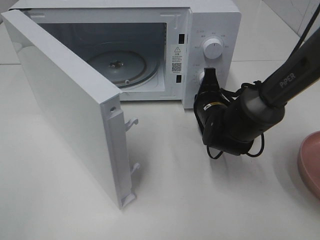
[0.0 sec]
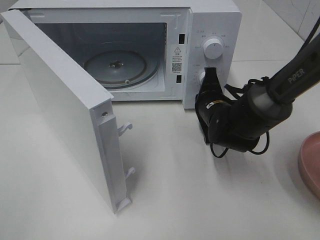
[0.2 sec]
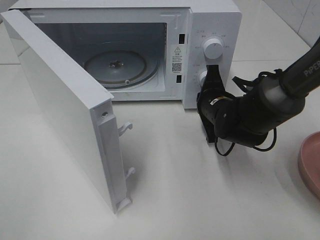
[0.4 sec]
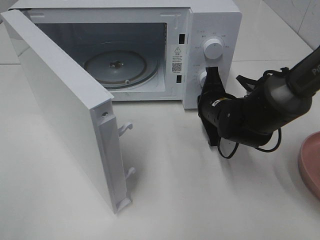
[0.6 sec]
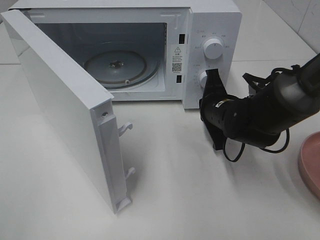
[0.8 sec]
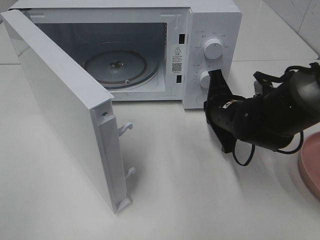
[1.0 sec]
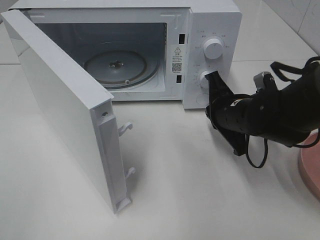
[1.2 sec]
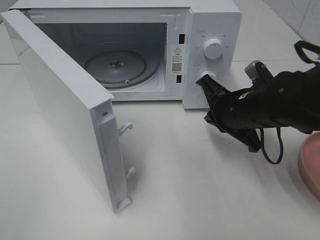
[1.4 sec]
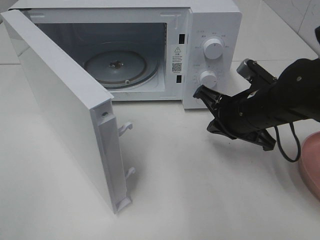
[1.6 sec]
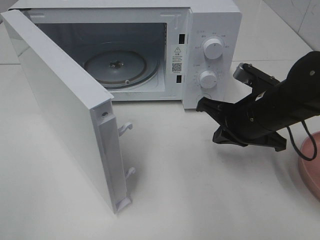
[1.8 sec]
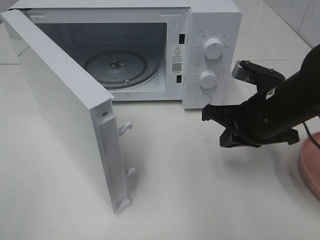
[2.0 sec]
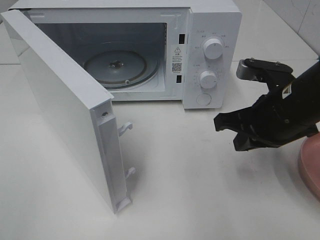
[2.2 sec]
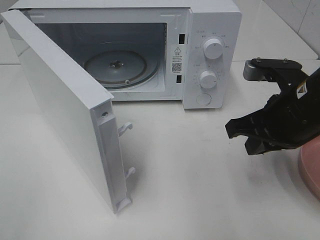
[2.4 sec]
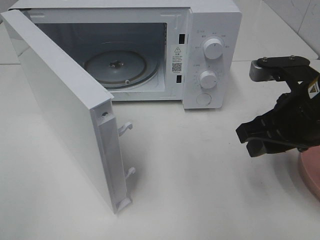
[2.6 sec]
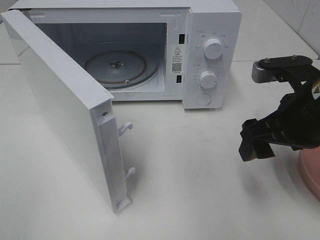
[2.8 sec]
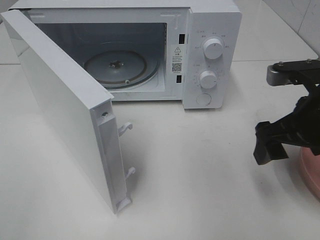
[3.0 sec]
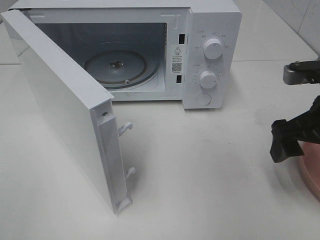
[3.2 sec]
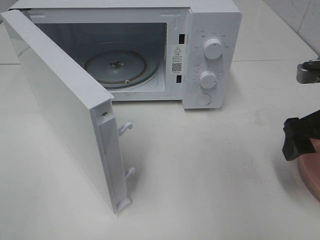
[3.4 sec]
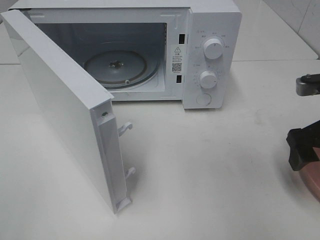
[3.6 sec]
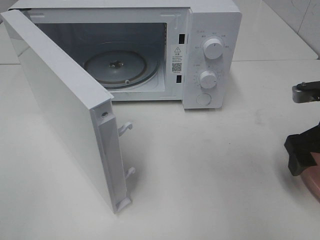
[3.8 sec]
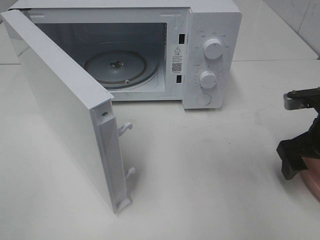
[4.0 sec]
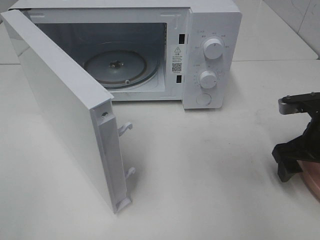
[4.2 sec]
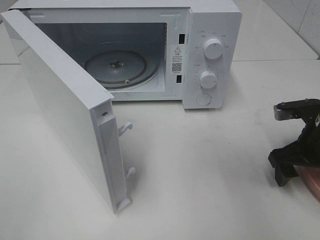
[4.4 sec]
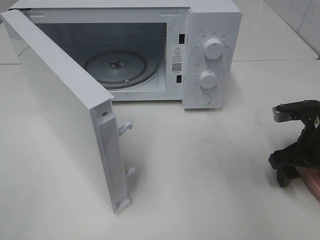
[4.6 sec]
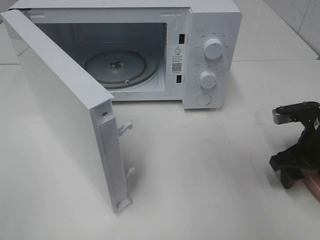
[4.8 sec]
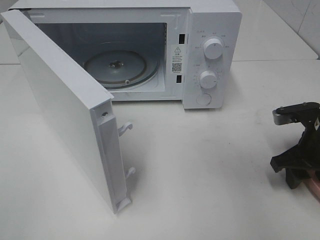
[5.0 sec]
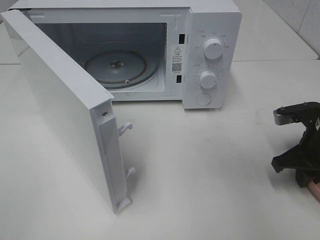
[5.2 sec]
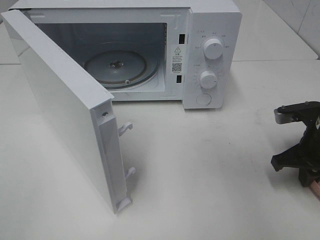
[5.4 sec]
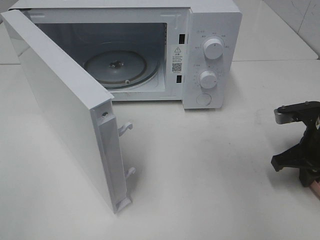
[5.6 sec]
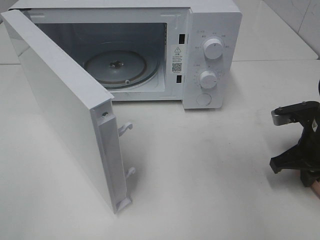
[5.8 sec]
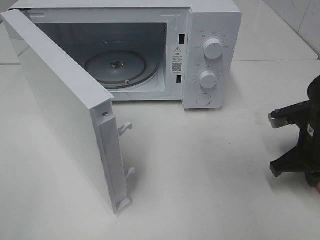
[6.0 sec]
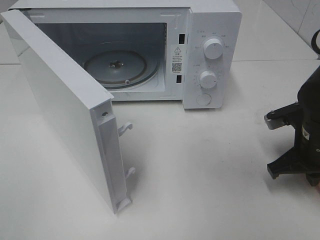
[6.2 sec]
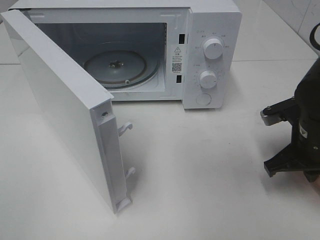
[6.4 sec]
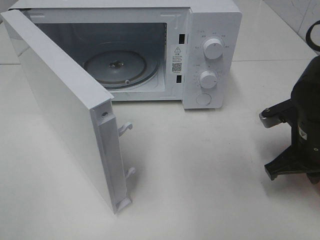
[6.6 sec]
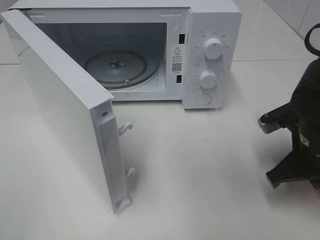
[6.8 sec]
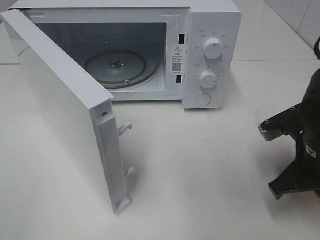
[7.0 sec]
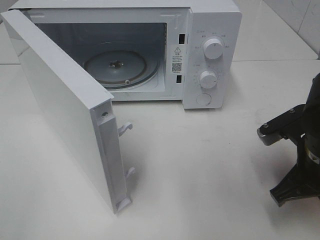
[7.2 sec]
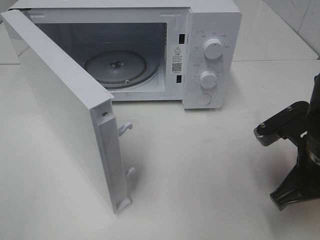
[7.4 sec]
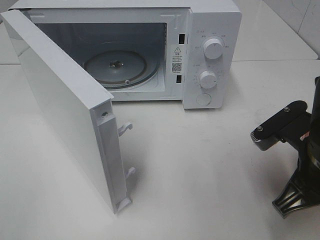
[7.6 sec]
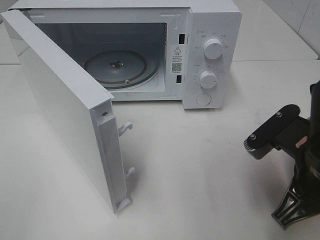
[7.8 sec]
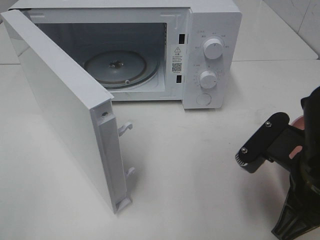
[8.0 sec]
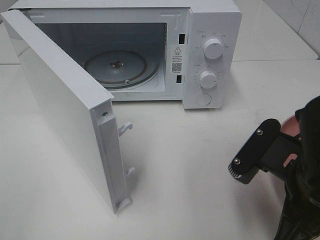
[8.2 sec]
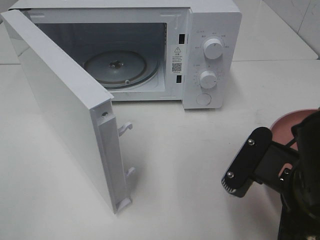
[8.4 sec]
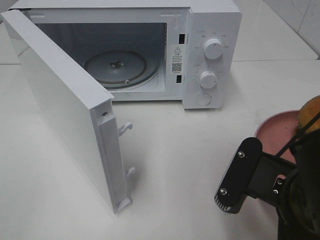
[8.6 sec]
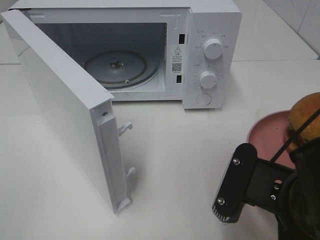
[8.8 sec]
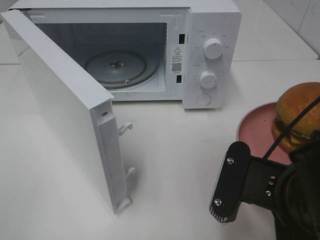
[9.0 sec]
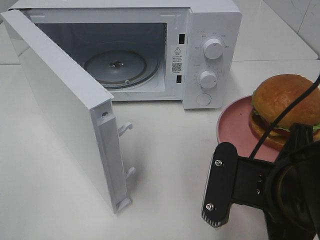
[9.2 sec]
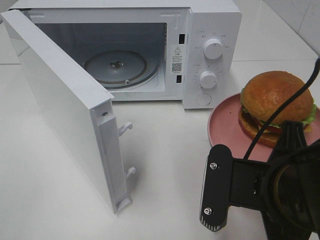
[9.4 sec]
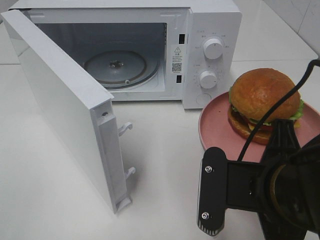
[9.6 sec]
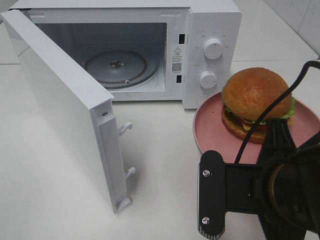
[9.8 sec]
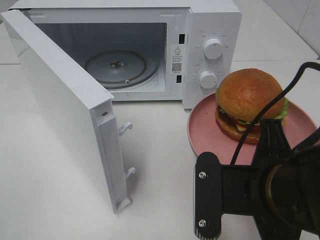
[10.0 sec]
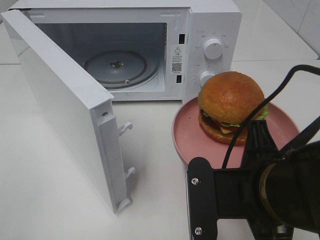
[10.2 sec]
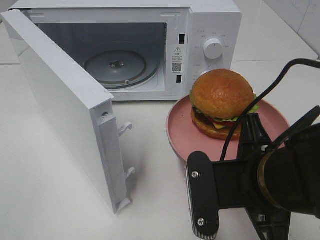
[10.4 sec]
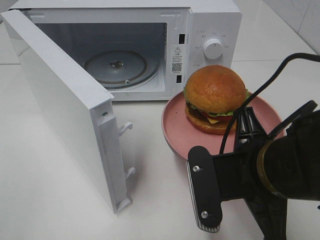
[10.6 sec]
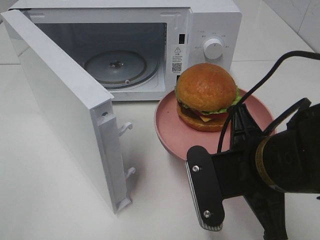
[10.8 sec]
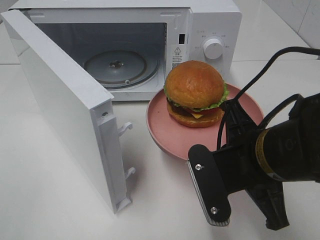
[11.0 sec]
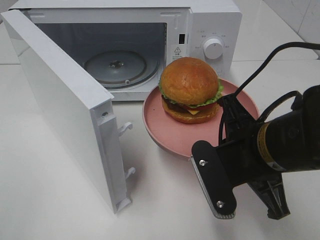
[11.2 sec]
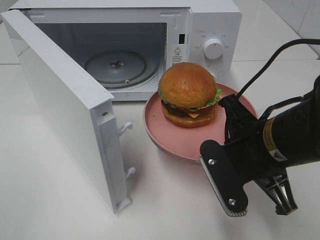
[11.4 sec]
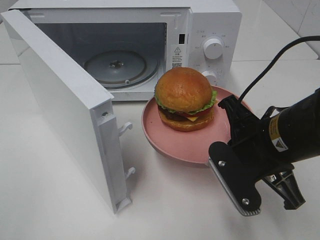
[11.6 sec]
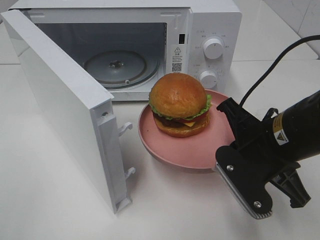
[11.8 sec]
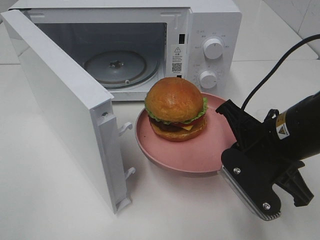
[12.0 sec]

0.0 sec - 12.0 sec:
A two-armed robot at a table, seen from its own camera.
Task of the whole recording: Heat the burger.
Step, 0.8 sec - 6.0 sec: Right hand: grab the plate with the hamburger.
0.0 sec - 1.6 sec: The right gripper is displaced backward and upward by approximately 10 cm.
1.6 sec - 3.0 sec: The right gripper goes approximately 10 cm upward, backward and to the right, and opens up.
3.0 sec - 4.4 sec: The right gripper shifts some 10 cm downward and to the right.
4.4 sec - 6.0 sec: The right gripper closes up.
6.0 sec - 7.6 sec: The right gripper goes about 15 cm backward, to the left and upward.
7.6 sec - 9.0 sec: The right gripper travels backward and to the left by roughly 10 cm.
10.4 sec - 12.0 sec: The right gripper heads forward, covering some 5 cm.

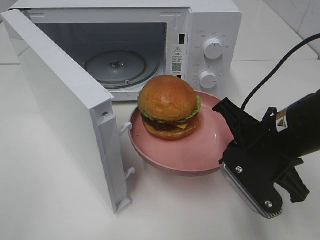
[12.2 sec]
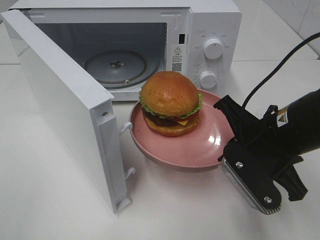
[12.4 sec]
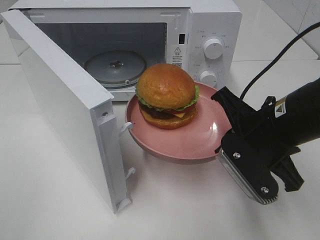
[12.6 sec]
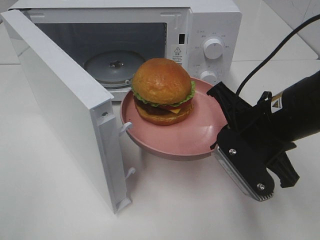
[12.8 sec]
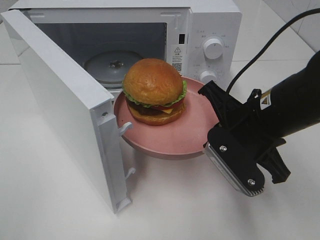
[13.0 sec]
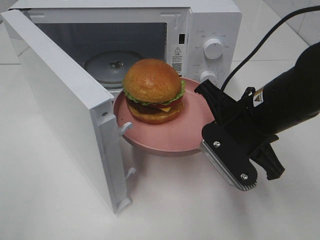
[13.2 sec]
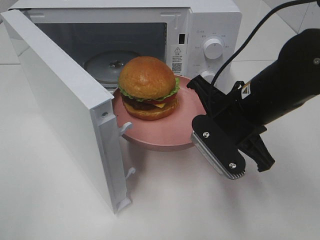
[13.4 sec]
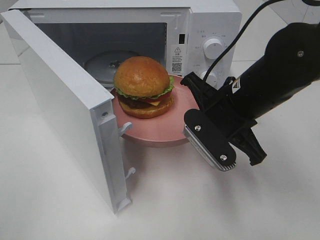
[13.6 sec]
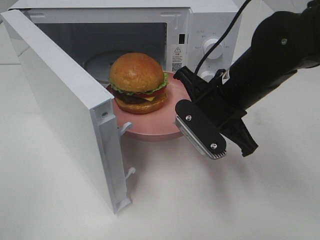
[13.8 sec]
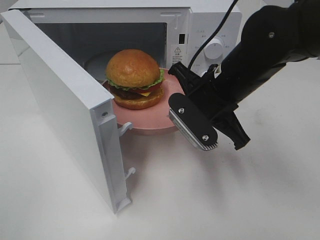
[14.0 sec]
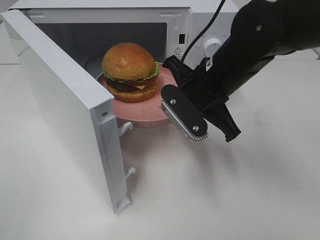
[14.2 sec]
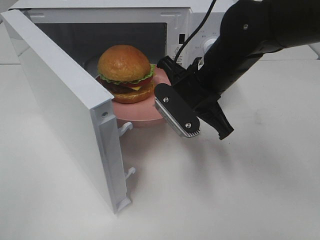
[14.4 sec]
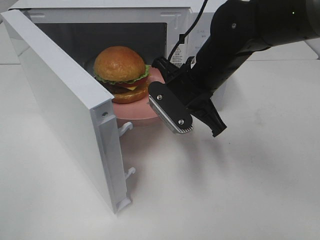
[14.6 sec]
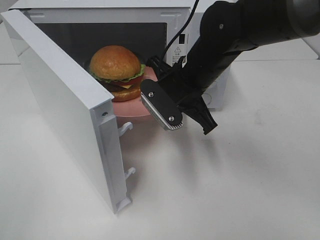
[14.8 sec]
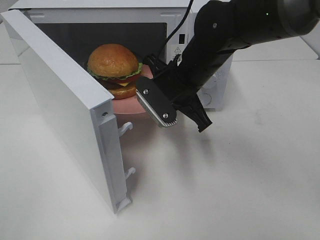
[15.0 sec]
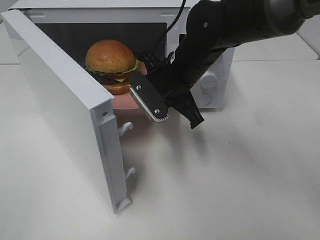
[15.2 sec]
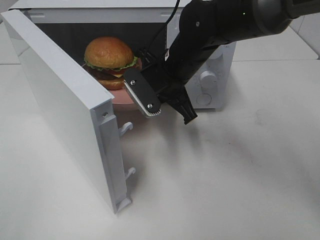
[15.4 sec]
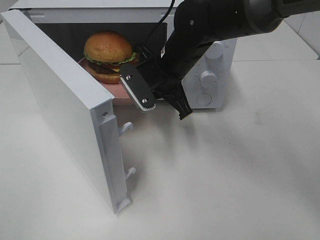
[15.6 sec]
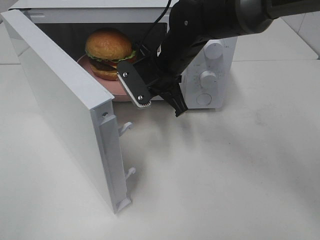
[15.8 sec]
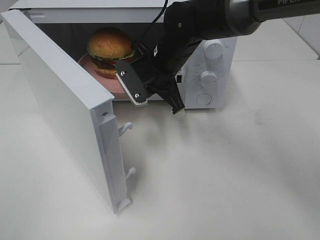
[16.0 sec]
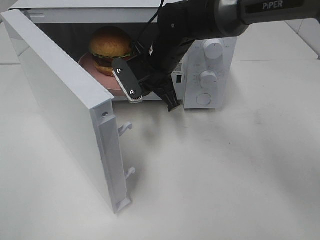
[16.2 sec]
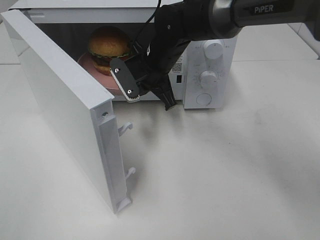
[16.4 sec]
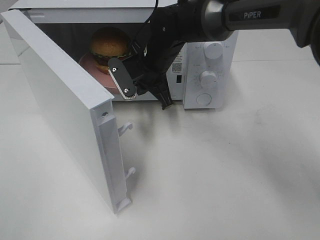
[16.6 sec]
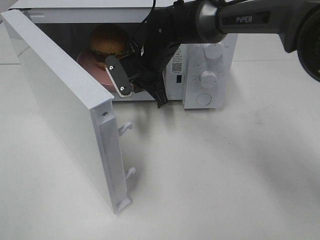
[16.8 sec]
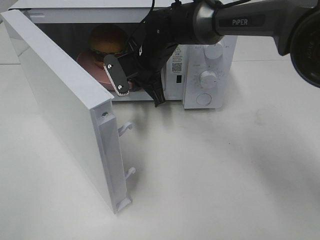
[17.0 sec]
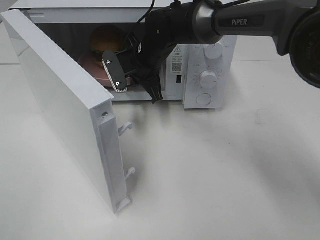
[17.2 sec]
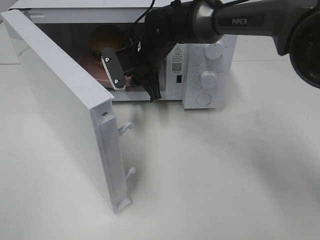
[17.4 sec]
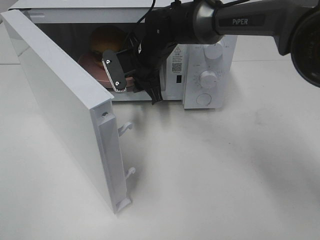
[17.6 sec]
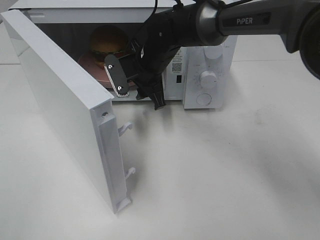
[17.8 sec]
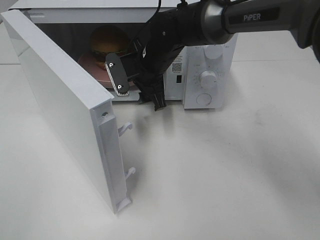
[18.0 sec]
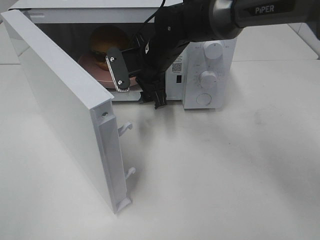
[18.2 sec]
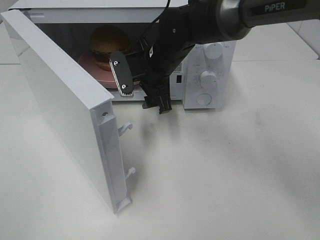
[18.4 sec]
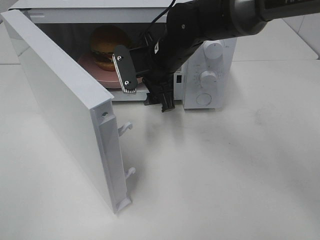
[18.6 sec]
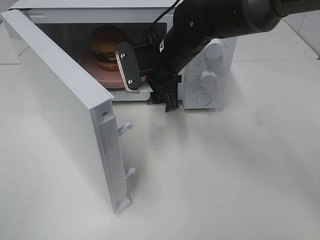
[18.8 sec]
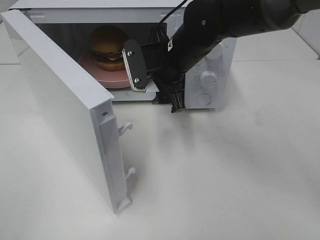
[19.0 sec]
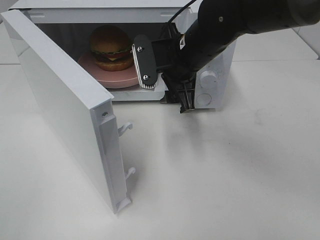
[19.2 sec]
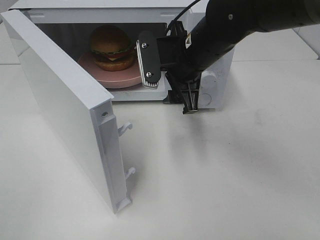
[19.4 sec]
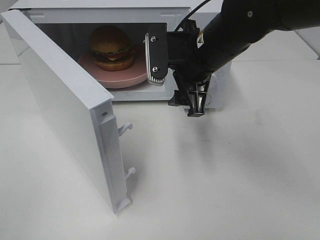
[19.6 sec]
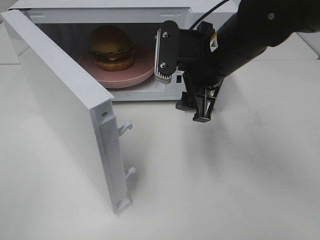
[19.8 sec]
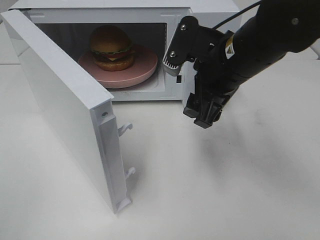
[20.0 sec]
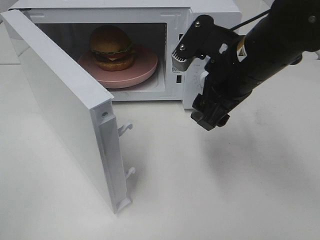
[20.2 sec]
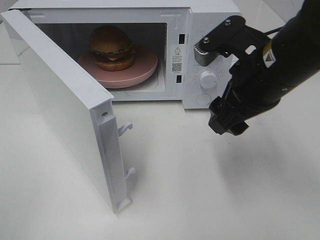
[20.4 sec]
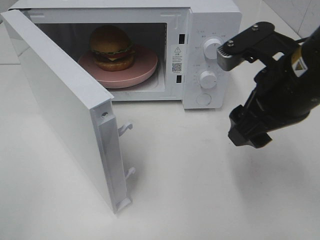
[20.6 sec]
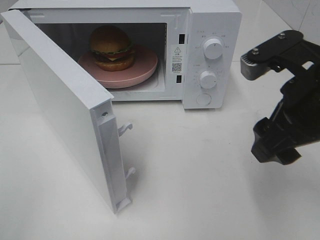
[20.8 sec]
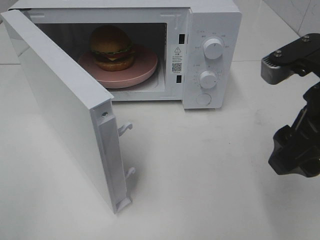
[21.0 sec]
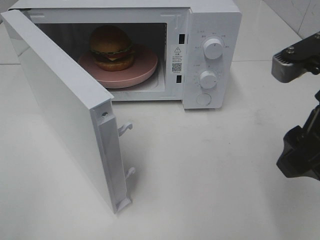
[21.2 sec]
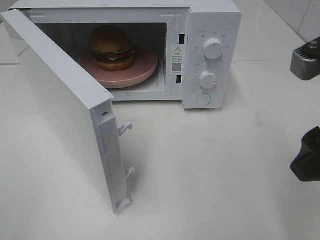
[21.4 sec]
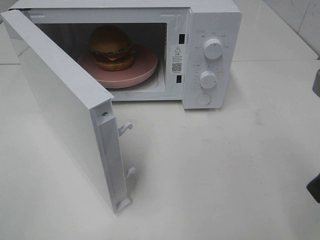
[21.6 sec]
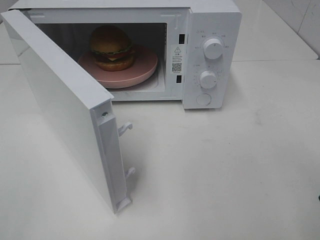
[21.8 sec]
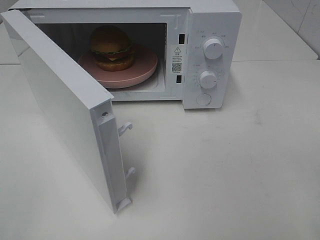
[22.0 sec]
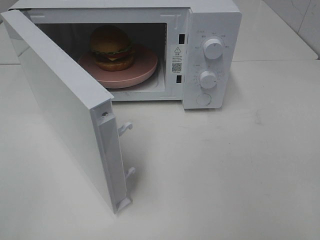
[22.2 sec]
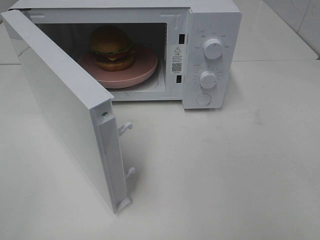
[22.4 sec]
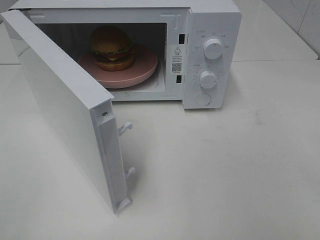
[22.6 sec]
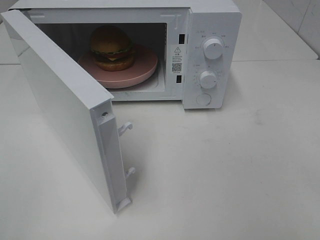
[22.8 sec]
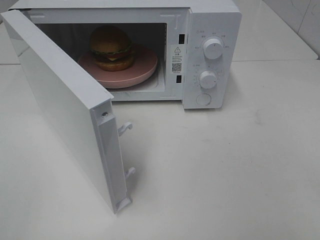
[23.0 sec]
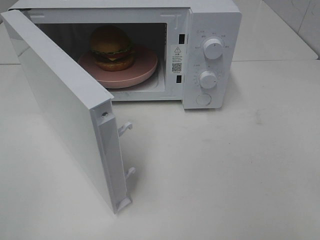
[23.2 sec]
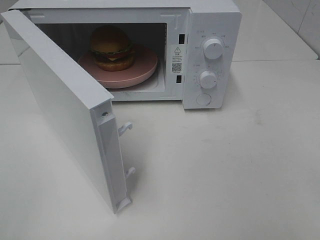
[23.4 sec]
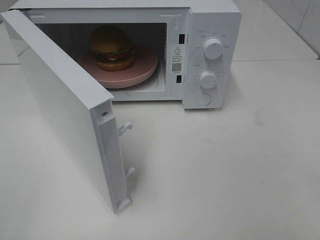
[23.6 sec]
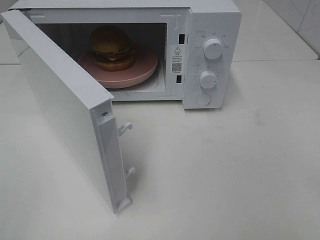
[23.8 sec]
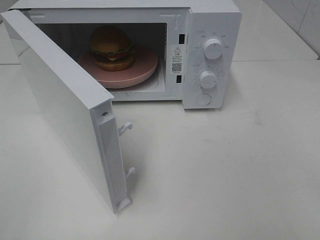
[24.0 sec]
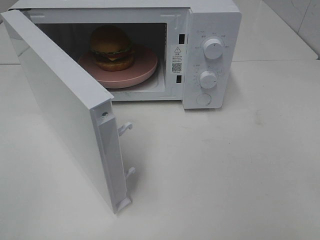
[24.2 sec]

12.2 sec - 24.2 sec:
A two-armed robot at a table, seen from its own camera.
Task of the whole recording: Heat the burger.
Step, 12.2 sec - 17.4 sec: Right hand: place the plate in the microwave.
12.2 sec - 13.8 sec: The right gripper travels forward and to the left by roughly 10 cm.
13.8 sec - 15.2 sec: The right gripper travels forward and to the left by roughly 10 cm.
15.2 sec - 16.6 sec: The right gripper is displaced forward by about 5 cm.
16.6 sec - 18.2 sec: The right gripper opens up.
18.2 sec - 19.8 sec: The right gripper shifts approximately 15 cm backward, to the right and upward.
19.8 sec - 21.2 sec: The right gripper travels backward and to the right by some 15 cm.
21.2 sec - 22.6 sec: The right gripper travels backward and to the right by some 15 cm.
